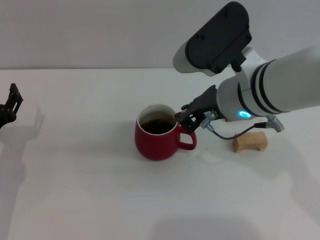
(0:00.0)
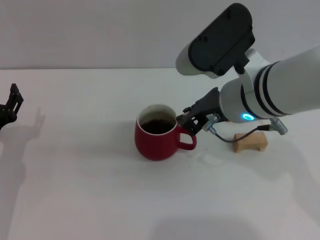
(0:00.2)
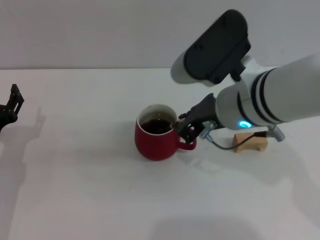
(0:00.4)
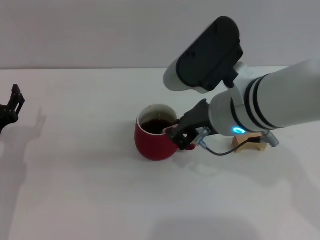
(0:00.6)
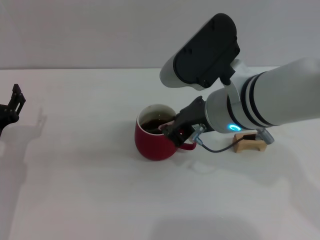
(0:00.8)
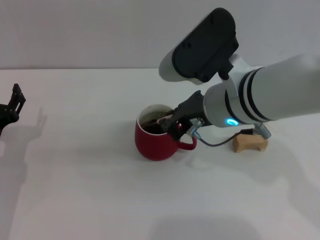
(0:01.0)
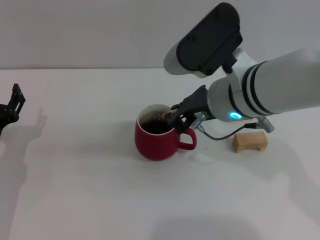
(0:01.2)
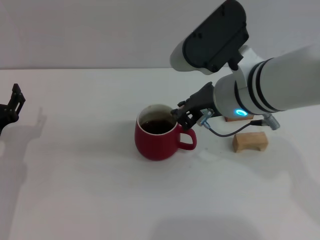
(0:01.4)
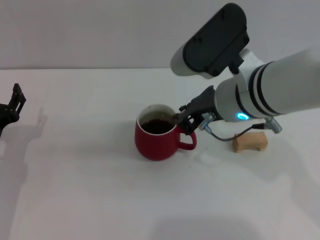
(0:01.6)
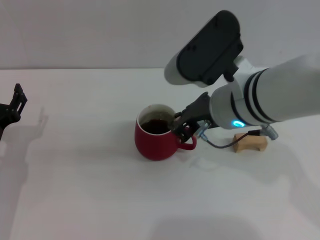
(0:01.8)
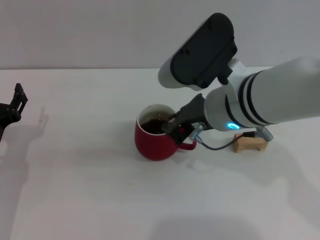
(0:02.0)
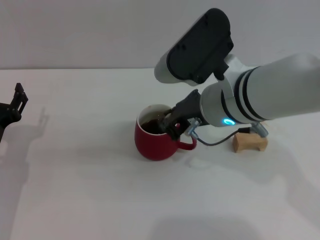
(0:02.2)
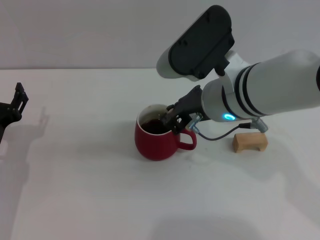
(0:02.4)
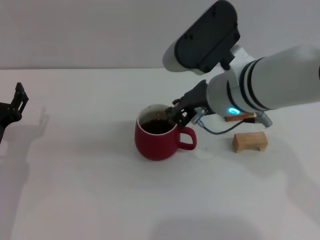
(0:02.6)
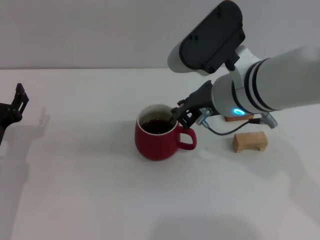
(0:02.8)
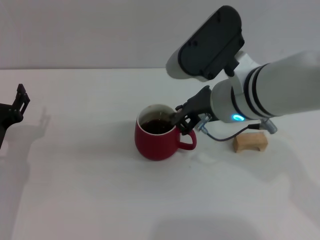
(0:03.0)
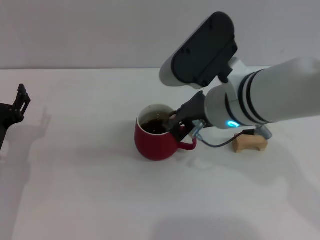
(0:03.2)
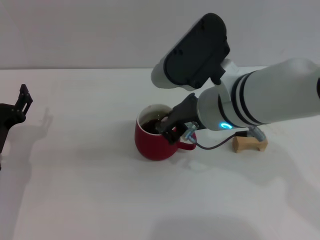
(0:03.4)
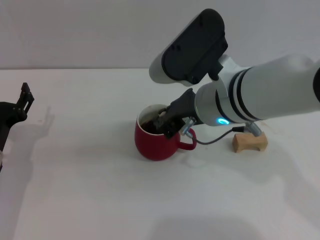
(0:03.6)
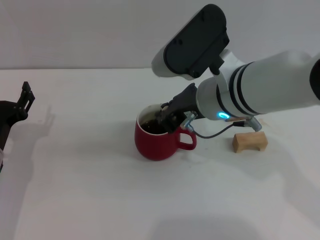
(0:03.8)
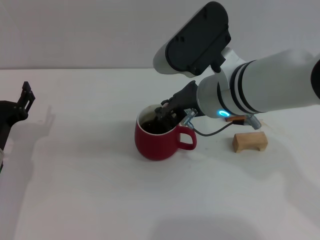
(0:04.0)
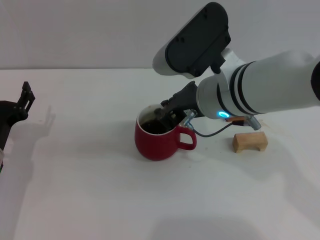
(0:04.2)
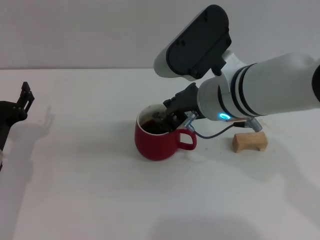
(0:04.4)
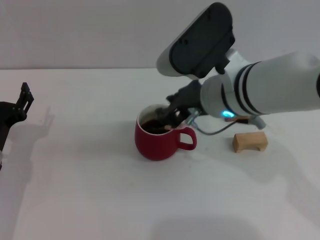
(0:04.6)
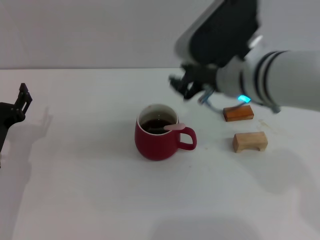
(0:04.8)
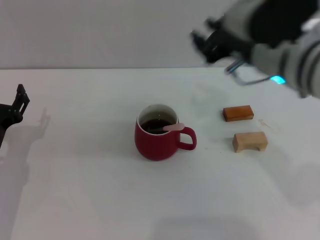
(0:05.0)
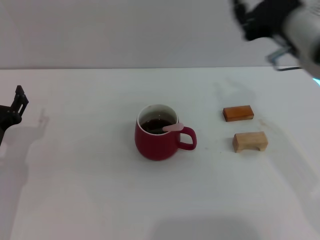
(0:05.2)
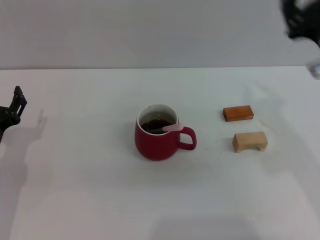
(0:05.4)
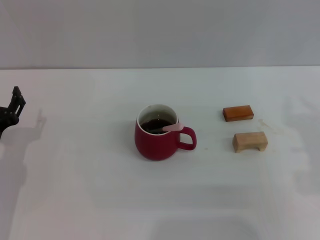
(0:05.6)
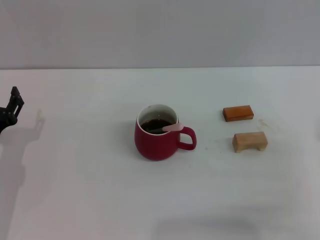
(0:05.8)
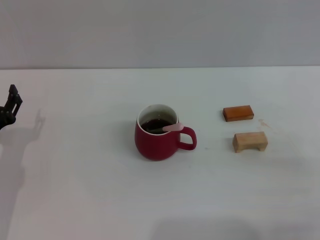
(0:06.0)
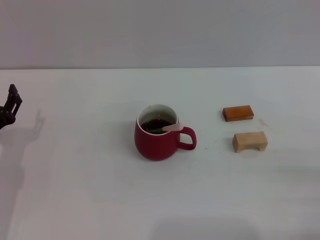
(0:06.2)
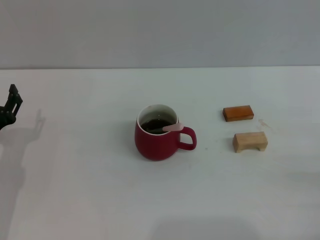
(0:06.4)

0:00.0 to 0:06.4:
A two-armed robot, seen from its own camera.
Task of the whole recording: Move the red cup to the center, lift the pink spoon, stir it three times in the cup, and put the spoon into the cup.
Step, 0:00.0 to 0:04.8: Stir the coffee in the cup with the right gripper.
0:00.0 to 0:04.8: The grippers make only small movements.
0:04.8 to 0:06.4: The right gripper shifts some 35 cm to the right, downward and backward, and opens its fingers.

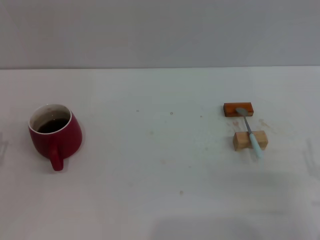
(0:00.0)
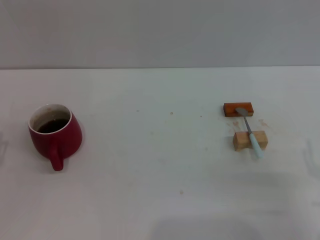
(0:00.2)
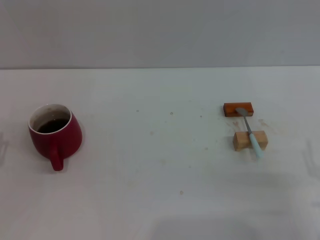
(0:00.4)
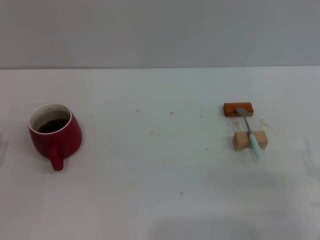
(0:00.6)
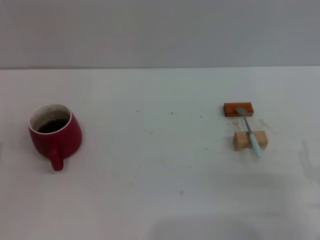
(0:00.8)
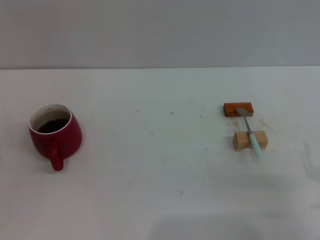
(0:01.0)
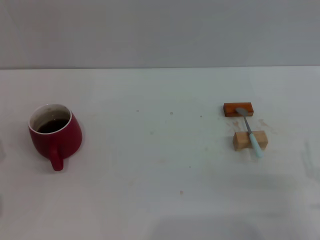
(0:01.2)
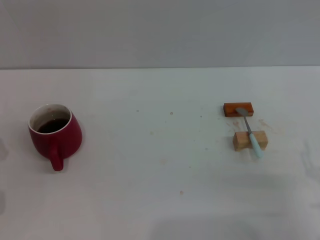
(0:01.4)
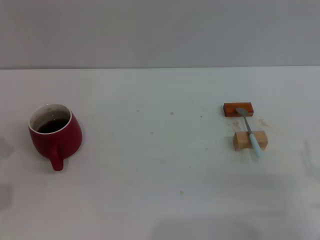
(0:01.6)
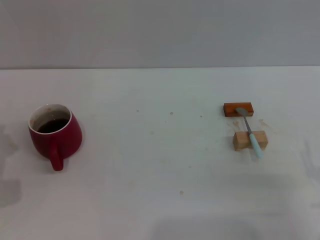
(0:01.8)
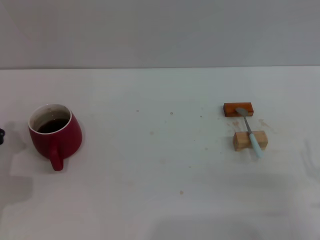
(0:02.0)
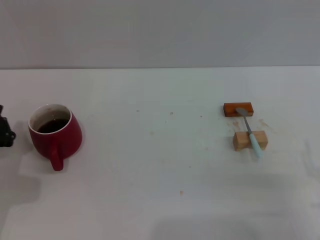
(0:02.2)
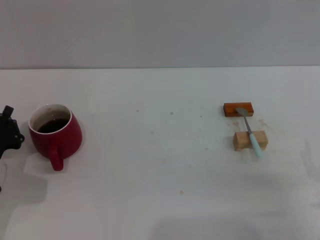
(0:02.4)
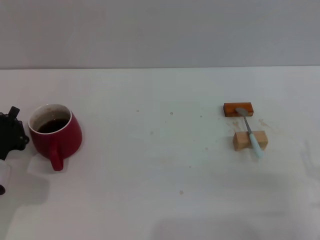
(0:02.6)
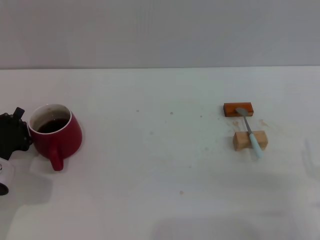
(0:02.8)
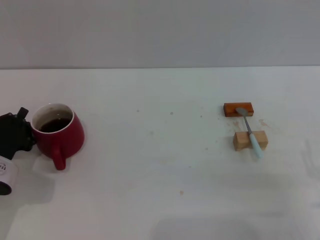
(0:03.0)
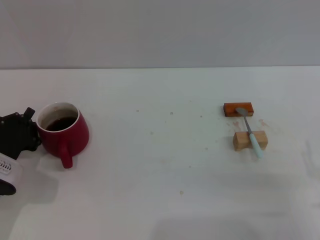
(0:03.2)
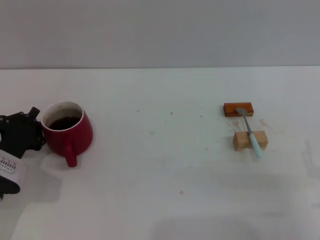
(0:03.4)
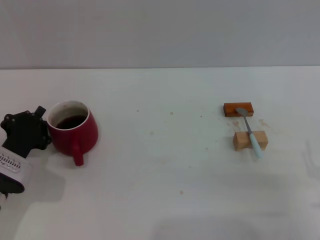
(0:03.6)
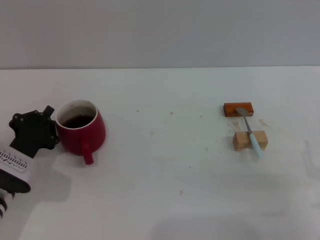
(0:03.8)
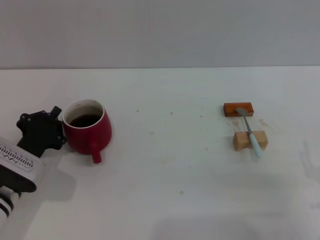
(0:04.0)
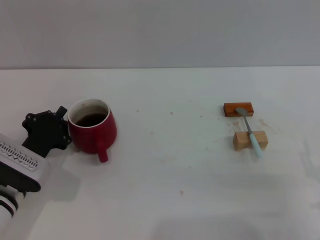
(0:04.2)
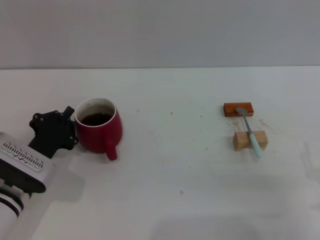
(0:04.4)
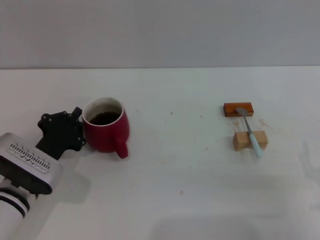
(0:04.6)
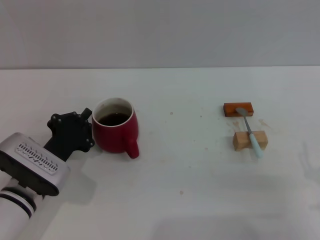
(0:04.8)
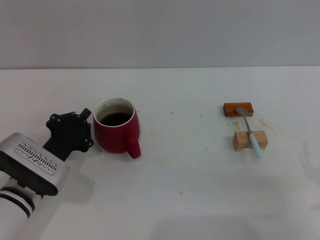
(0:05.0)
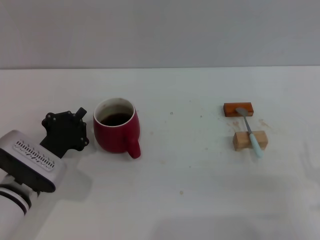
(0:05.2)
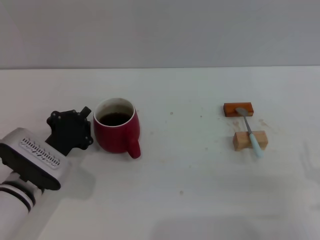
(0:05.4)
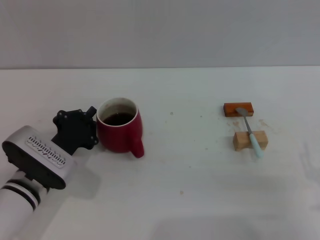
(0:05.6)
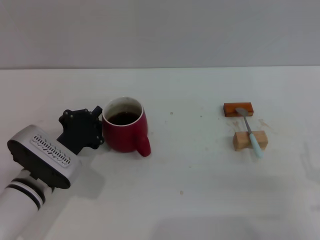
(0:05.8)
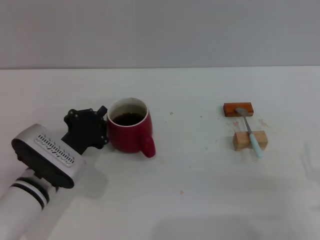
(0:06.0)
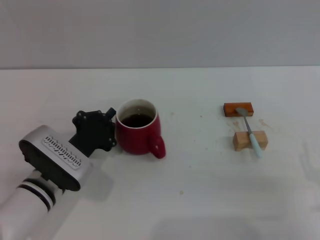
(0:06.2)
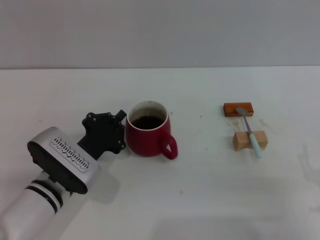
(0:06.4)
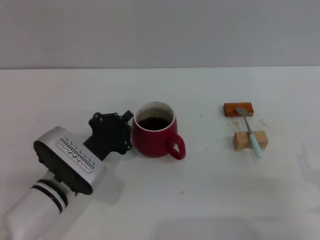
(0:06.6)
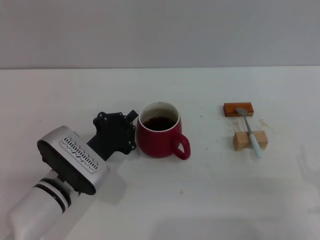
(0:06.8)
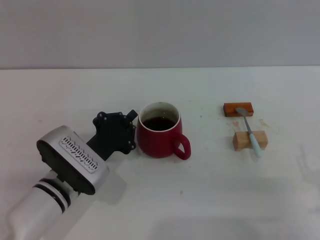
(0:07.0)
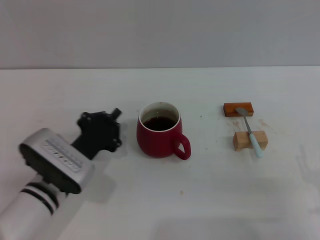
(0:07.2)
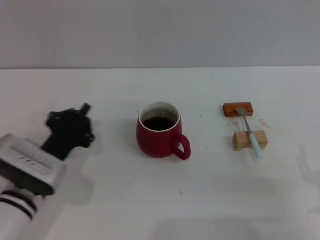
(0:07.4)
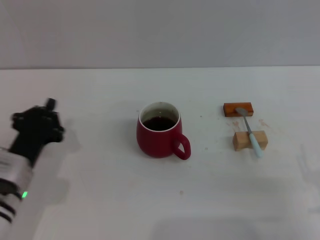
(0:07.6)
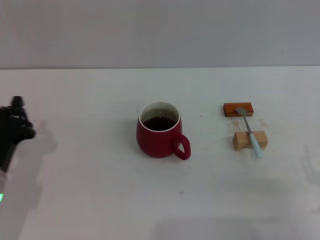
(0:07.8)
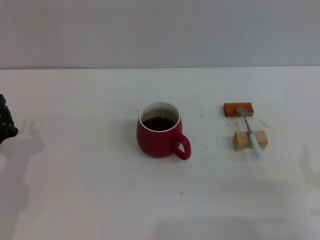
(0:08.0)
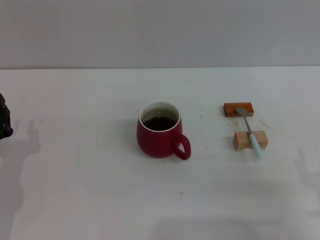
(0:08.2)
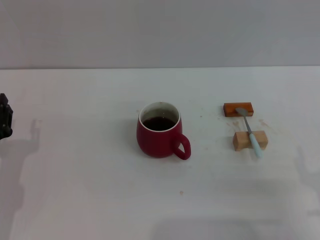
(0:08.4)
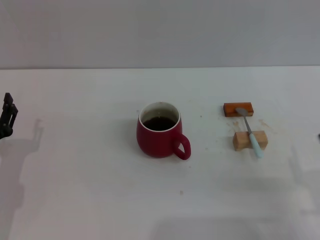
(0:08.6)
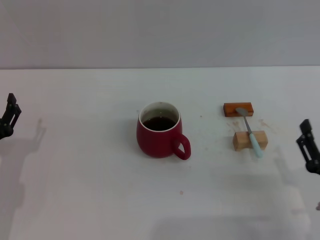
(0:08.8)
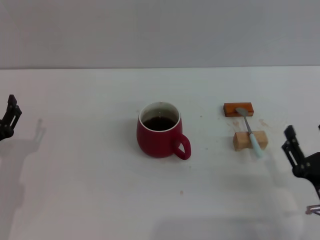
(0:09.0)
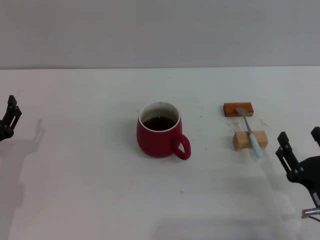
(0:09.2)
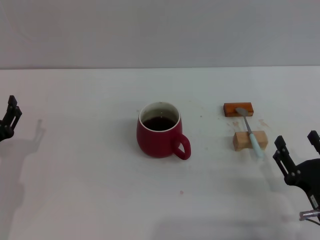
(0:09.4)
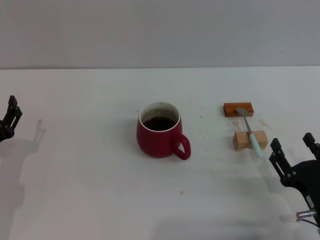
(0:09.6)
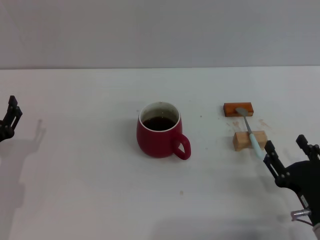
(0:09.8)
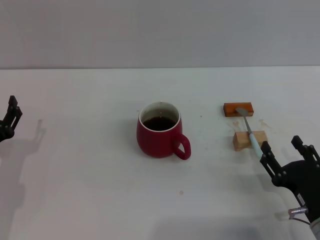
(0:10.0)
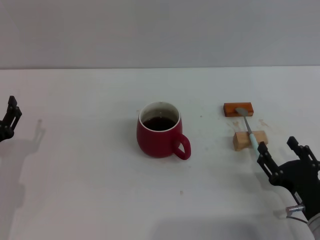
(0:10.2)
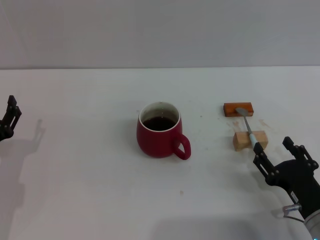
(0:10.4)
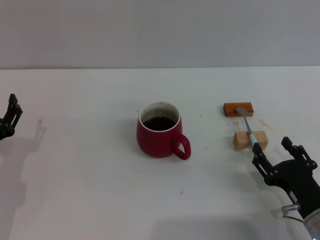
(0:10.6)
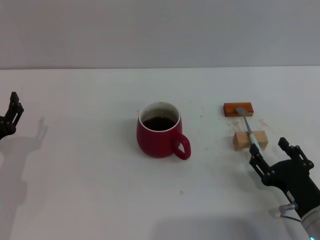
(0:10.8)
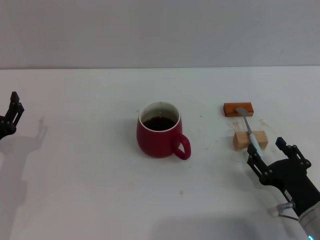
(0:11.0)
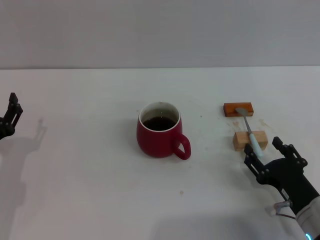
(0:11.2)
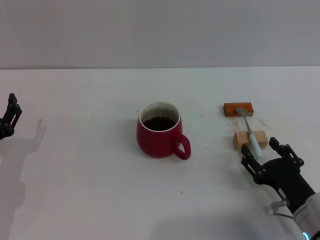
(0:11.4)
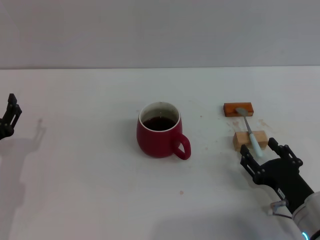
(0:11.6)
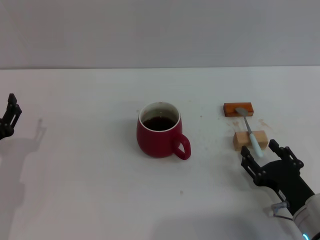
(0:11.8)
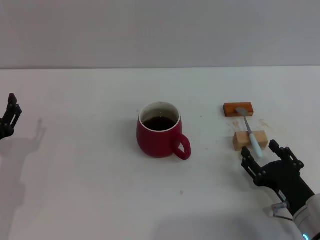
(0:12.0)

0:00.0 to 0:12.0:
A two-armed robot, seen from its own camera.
Task of the whole recording: Move the red cup to the center, lift the blue spoon, stir it three times in the cup, and put the spoon into the cup.
Step, 0:00.0 to 0:07.4: Move the cup with coffee to the center of view with the left gripper.
0:03.0 to 0:04.4: The left gripper shifts about 5 cm to the right.
0:04.4 to 0:06.0: The grippers move only a little.
0:06.0 to 0:07.6: The grippers stay close to where they were, moving slightly.
0:07.6 to 0:09.0: The left gripper travels to the left by approximately 5 cm, and opens its fingers.
0:09.0 to 0:12.0: The grippers make only small movements.

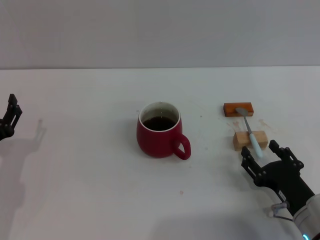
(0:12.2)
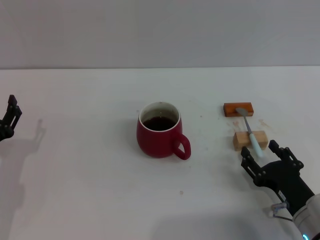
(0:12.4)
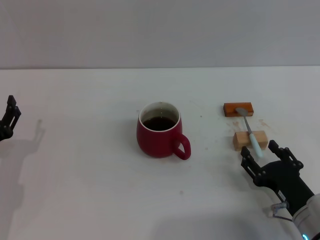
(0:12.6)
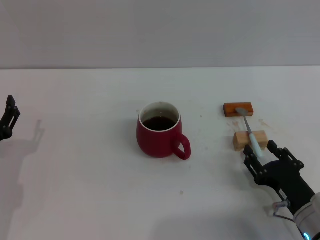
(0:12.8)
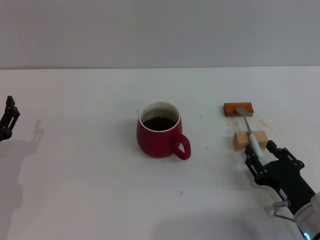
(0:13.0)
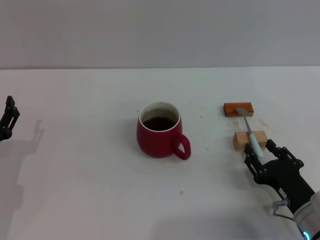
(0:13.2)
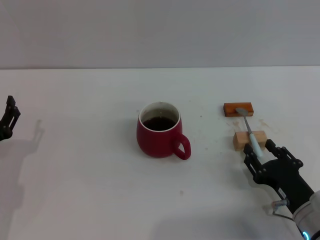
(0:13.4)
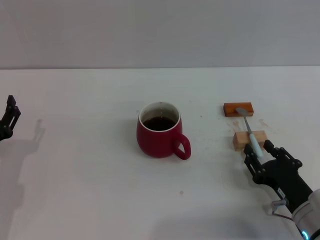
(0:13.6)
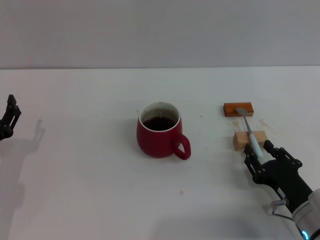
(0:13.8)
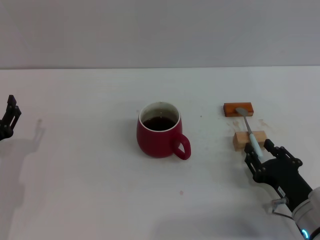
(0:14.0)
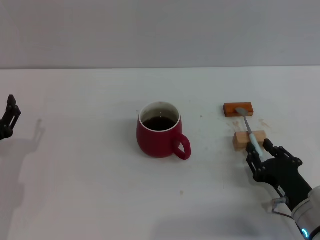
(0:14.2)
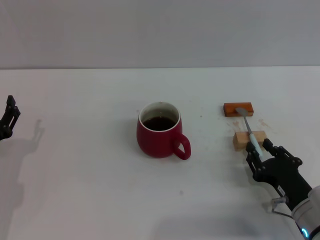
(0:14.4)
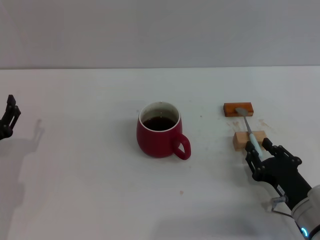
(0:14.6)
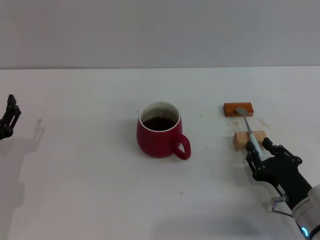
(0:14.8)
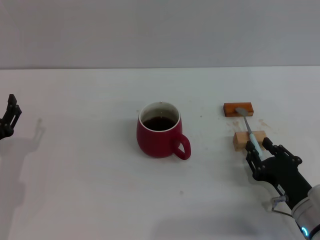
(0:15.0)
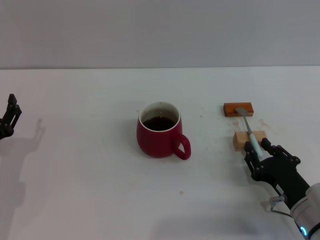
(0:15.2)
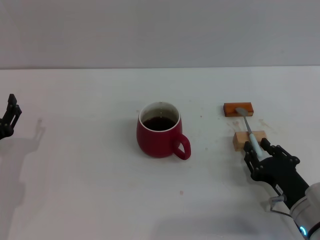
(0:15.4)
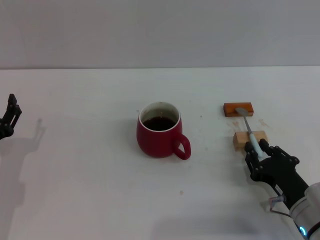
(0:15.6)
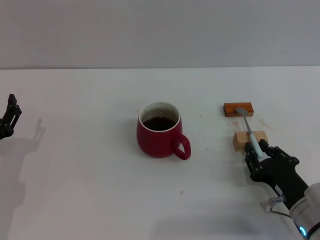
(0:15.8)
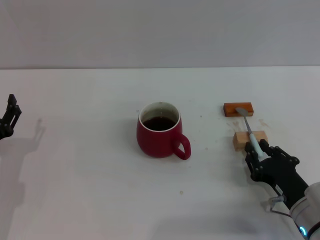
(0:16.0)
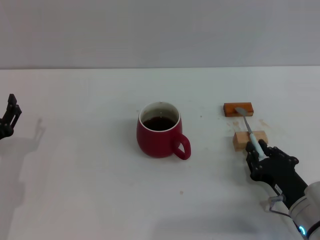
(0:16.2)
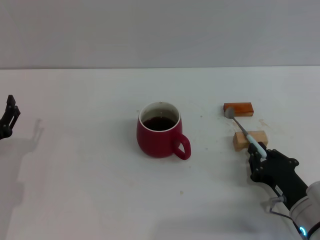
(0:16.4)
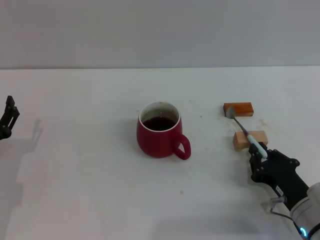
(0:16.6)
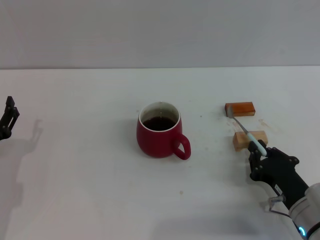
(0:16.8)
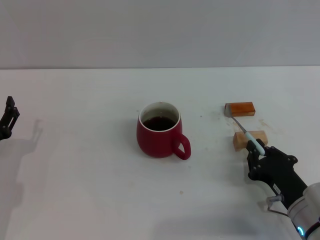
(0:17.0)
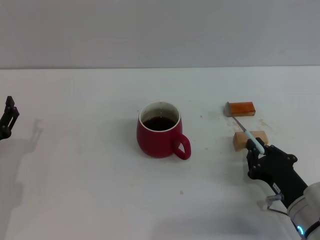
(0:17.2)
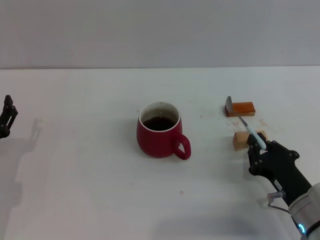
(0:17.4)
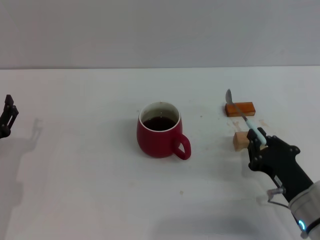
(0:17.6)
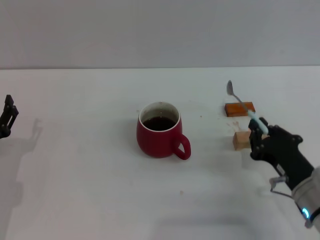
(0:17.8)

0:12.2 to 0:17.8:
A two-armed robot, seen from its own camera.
Task of the whole recording: Move the red cup to the center, lift the blue spoon, stir it three times in the cup, and put the spoon into the cup.
0:12.2 to 0:15.0: Both grippers stay put.
0:15.0 to 0:16.4: The two grippers keep their place.
0:16.4 to 0:17.8: The grippers move only a little.
